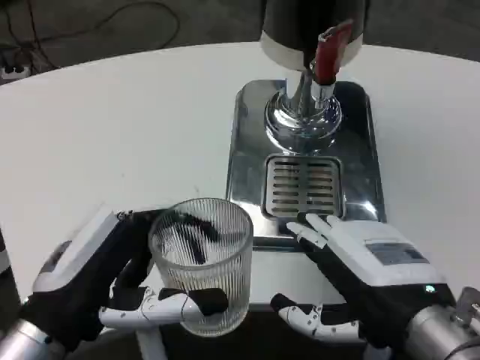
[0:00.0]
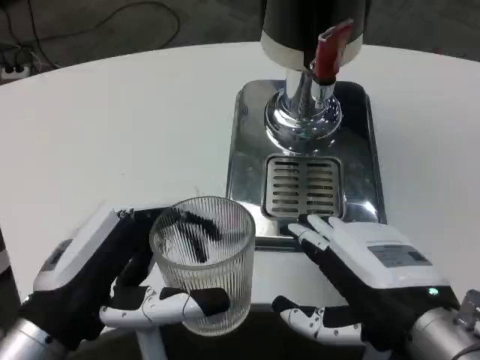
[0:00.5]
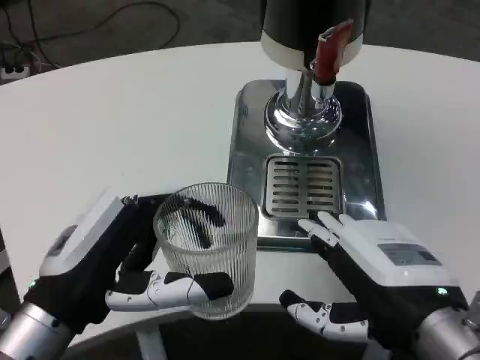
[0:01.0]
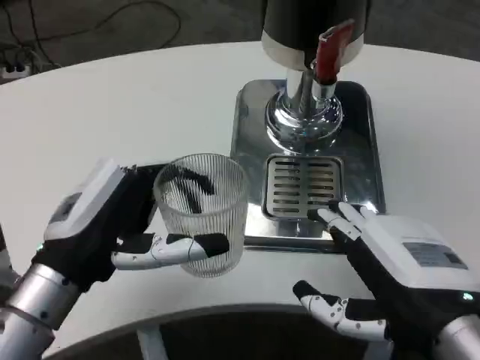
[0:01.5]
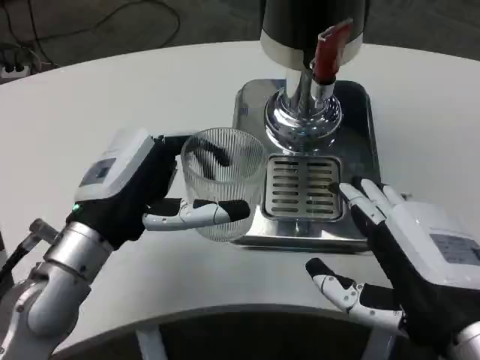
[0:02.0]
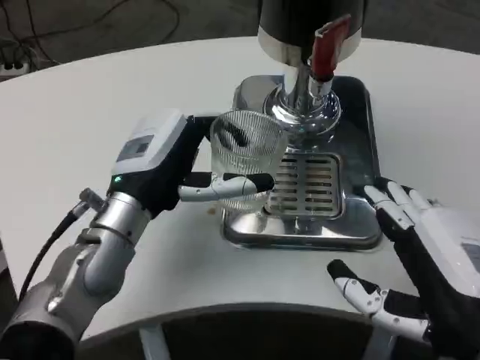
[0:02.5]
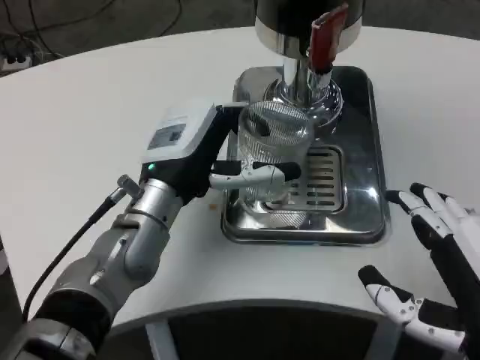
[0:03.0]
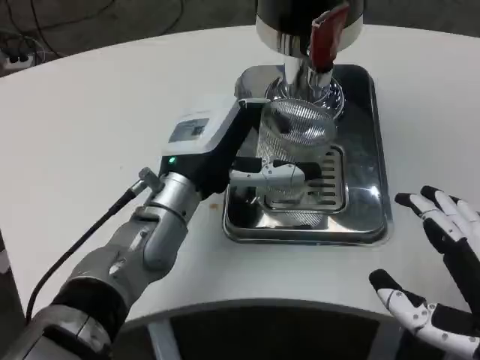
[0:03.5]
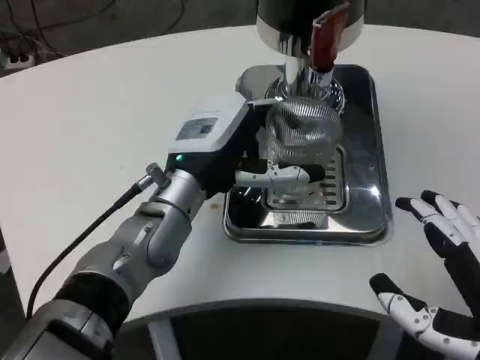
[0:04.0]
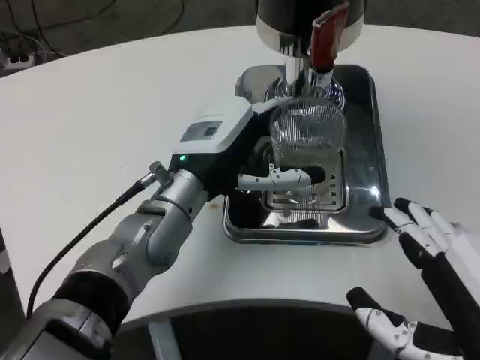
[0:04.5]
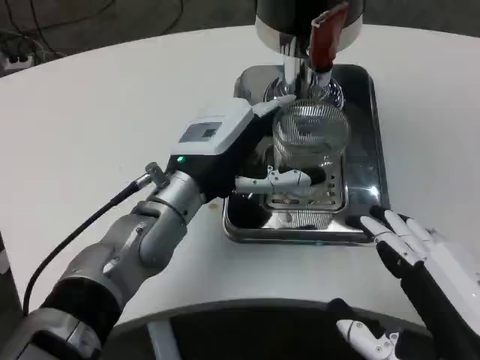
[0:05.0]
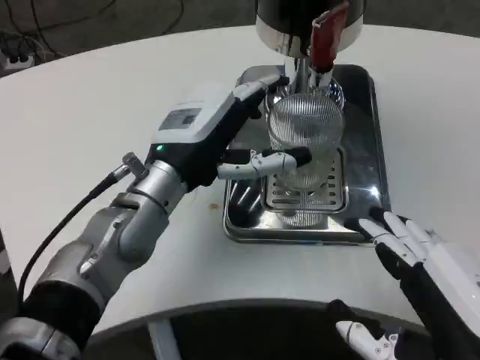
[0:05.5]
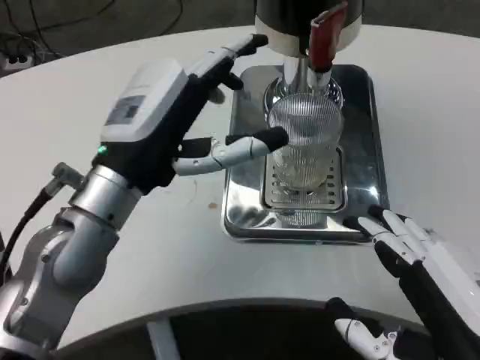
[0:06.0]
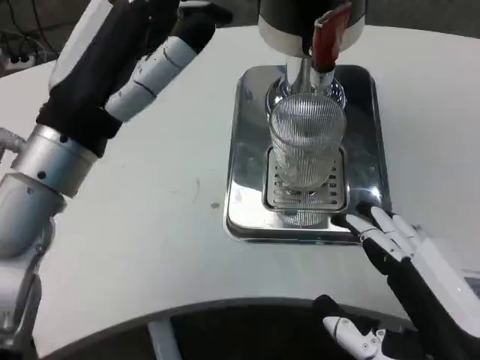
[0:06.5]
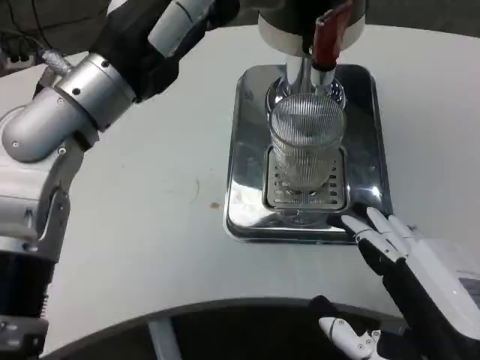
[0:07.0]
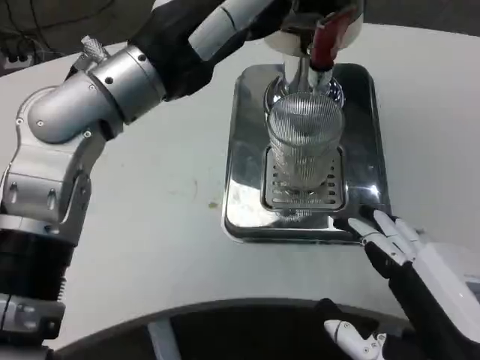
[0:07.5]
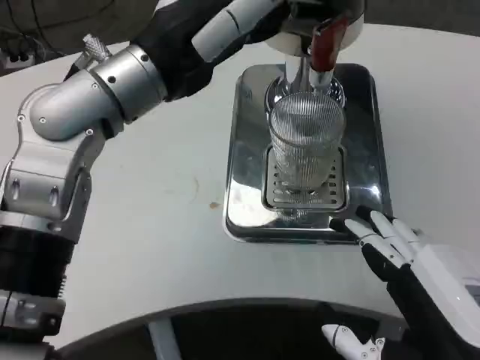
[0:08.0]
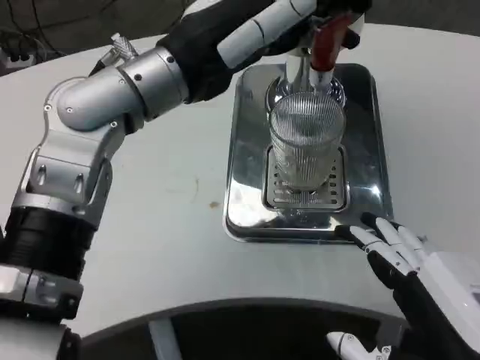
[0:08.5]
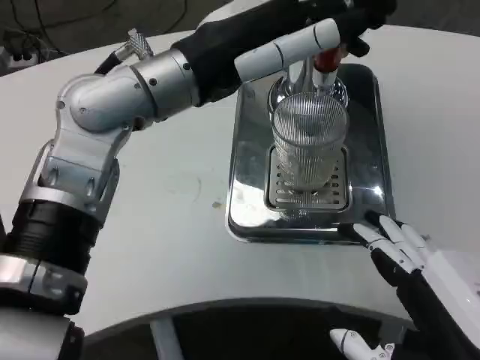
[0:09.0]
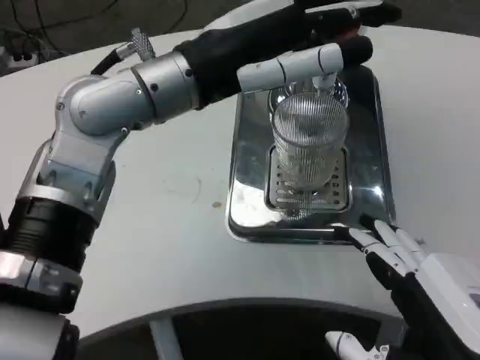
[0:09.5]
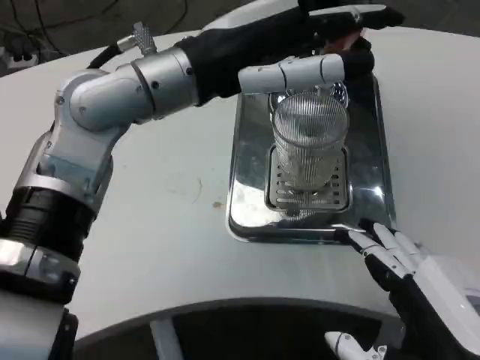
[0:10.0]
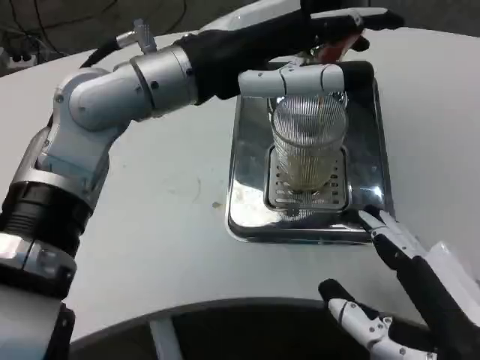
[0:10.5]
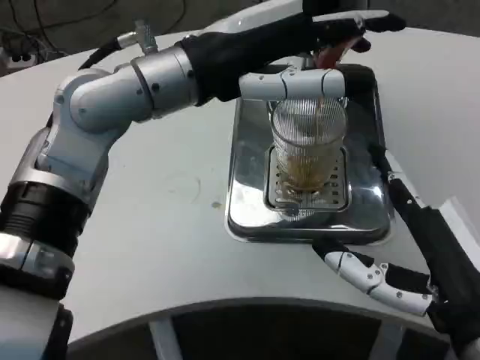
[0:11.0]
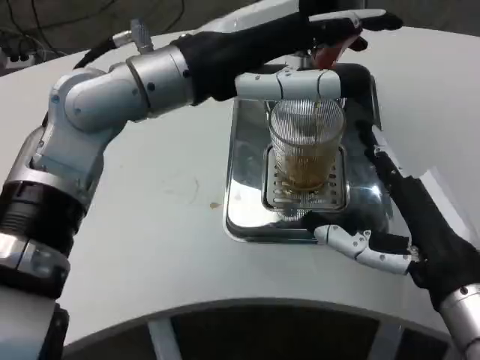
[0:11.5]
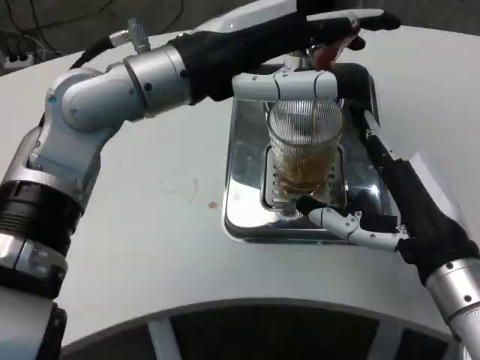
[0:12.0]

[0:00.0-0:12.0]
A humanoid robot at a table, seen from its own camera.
Task of the whole recording: Grasp the cup under the faucet to collect the drink, then remove the cup.
0:00.0 to 0:02.0: The left hand travels forward by about 10 cm.
0:02.0 to 0:04.0: The left hand travels to the right and forward by roughly 10 cm.
0:04.0 to 0:06.0: The left hand travels backward and to the left by some 10 cm.
0:06.0 to 0:08.0: The left hand is displaced upward by some 10 cm.
0:10.0 to 0:12.0: The right hand travels forward by about 15 cm.

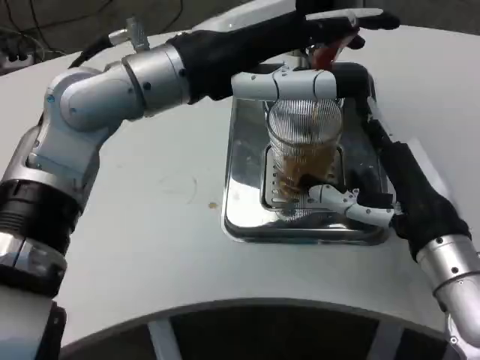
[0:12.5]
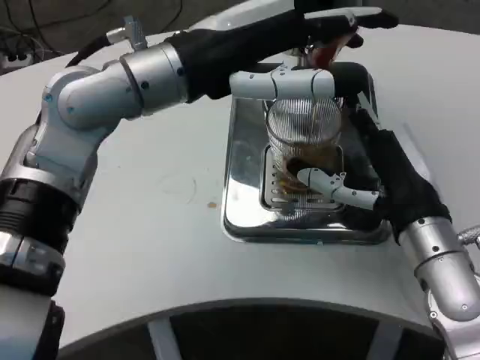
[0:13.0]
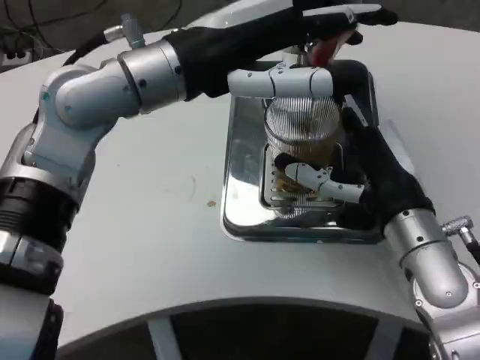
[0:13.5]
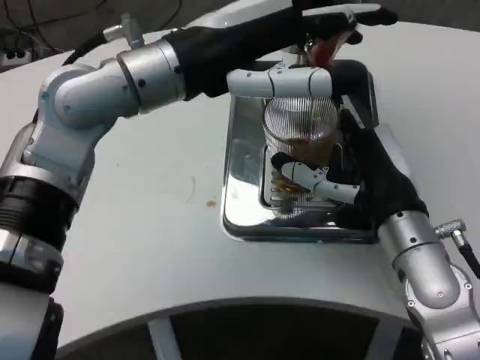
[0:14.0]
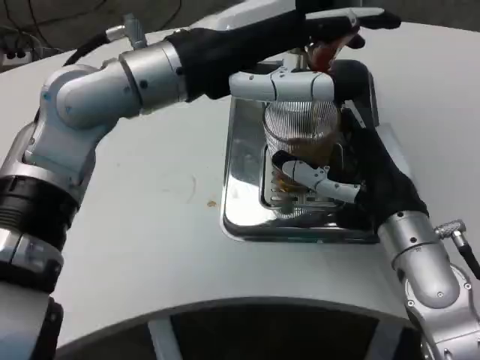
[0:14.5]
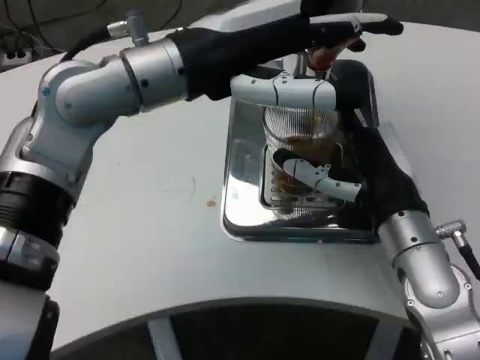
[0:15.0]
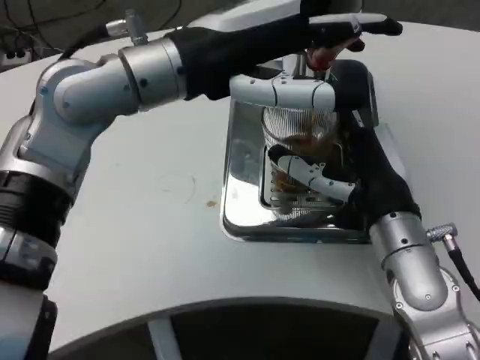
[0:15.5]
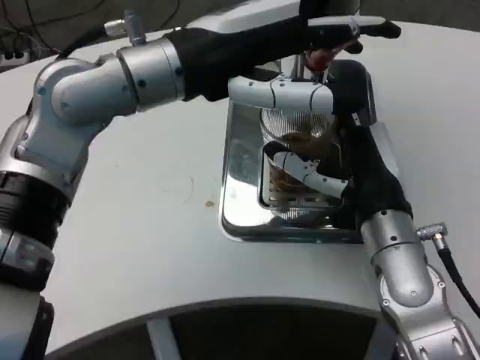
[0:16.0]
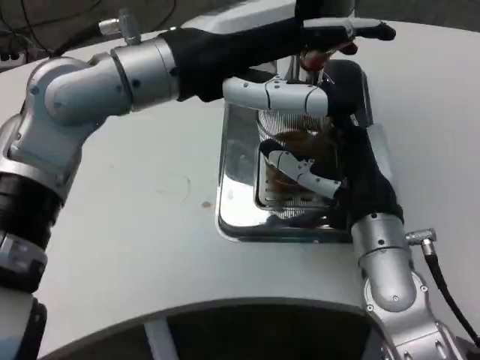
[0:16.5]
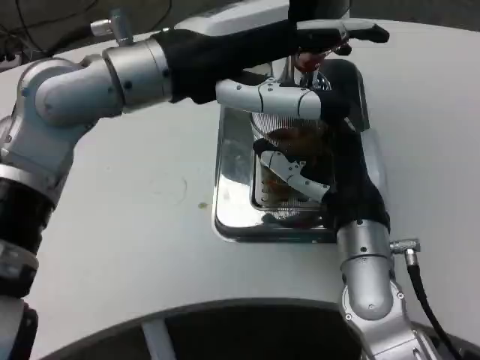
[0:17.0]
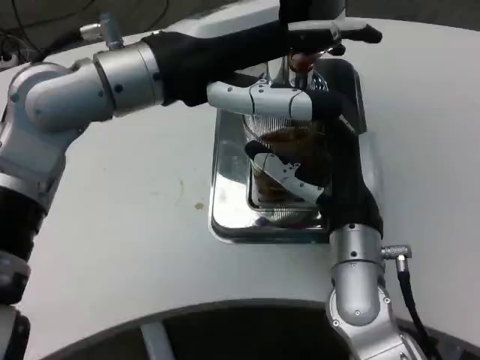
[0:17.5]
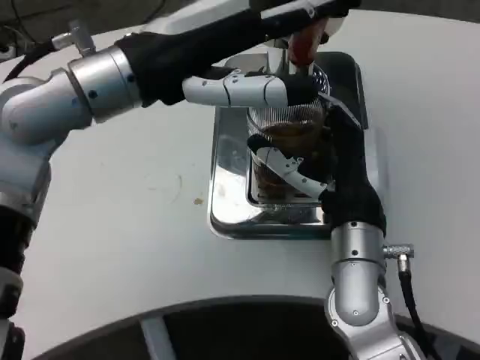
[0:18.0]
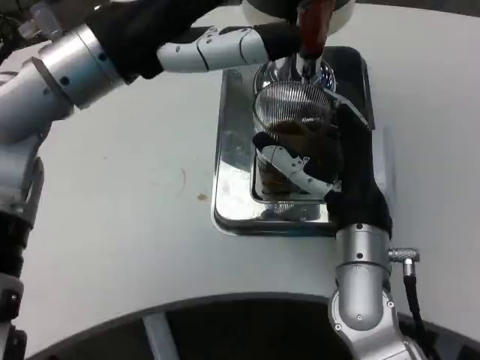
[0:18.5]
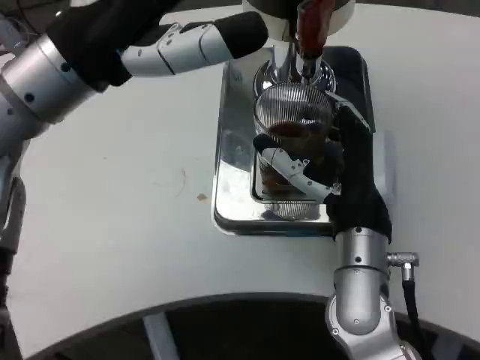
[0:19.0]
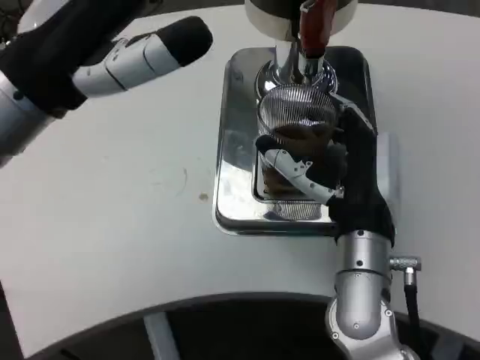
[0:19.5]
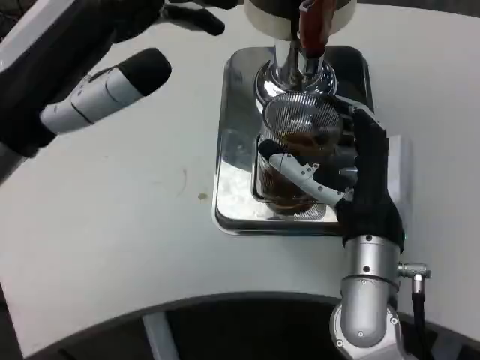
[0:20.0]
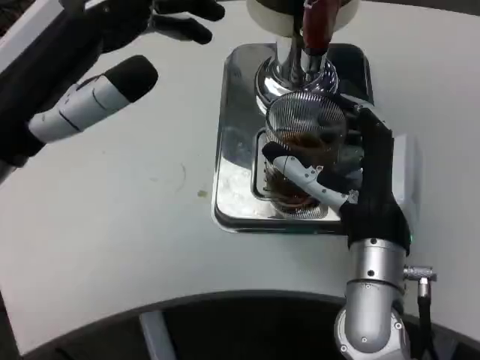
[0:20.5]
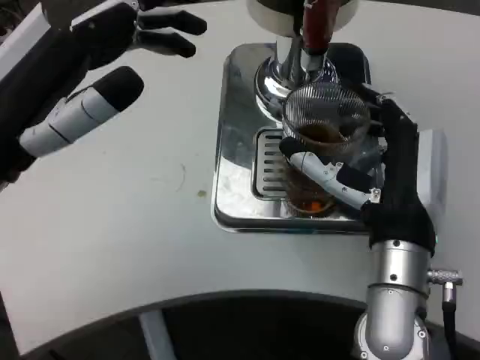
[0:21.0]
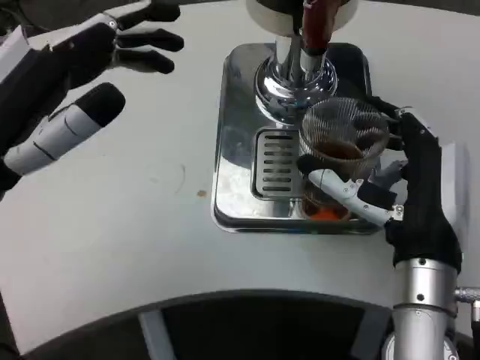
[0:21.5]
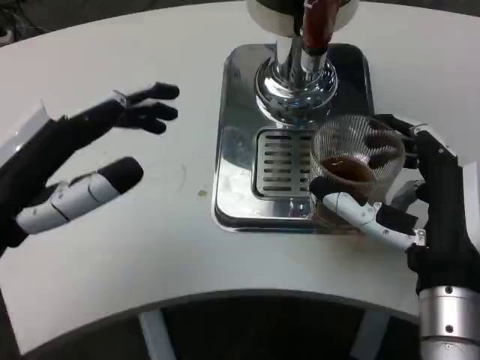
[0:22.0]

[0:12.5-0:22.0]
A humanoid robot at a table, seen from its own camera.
Task of the whole recording: Grasp the cup under the faucet to collect the drink, then remove the cup.
0:18.0 to 0:20.0: The left hand is displaced backward and to the left by some 10 cm.
0:20.0 to 0:22.0: The right hand travels backward and to the right by some 10 cm, while the left hand is displaced downward by roughly 5 cm.

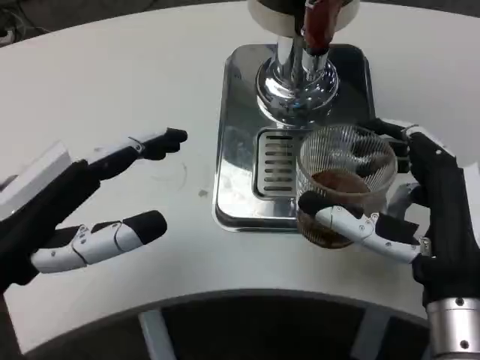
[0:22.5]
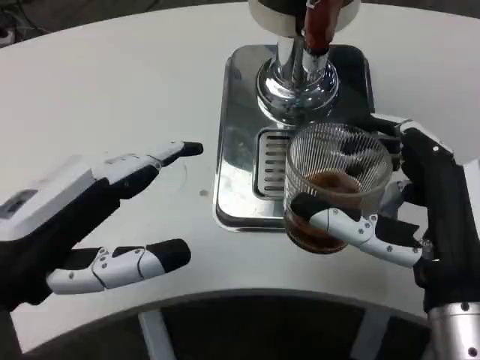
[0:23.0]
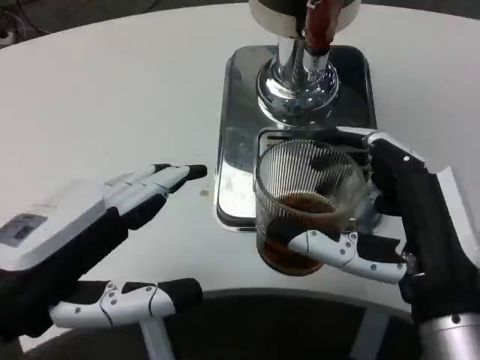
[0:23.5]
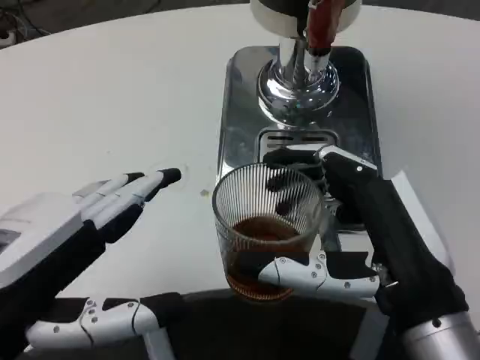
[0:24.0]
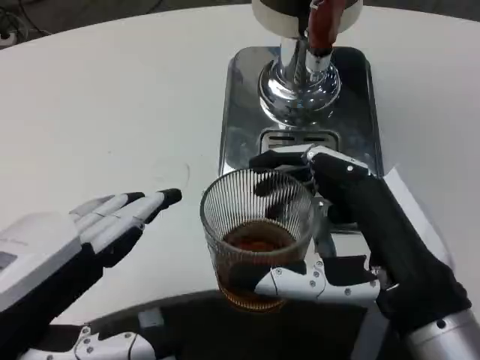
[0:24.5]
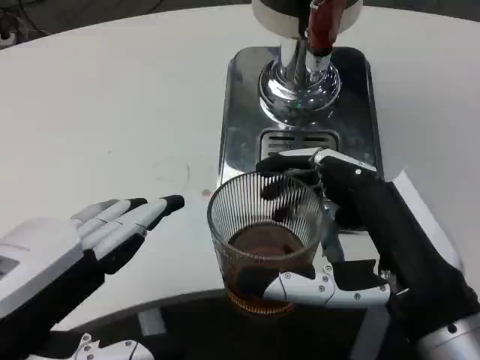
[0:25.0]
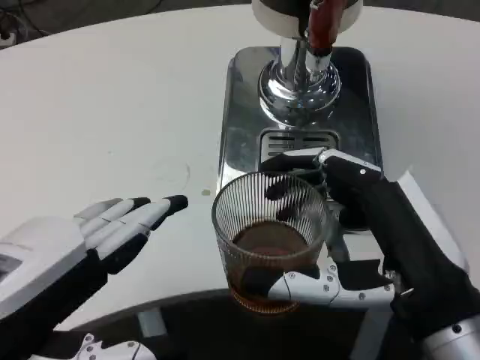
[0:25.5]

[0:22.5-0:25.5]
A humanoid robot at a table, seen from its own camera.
Task of the whole recording: Grasp the cup under the faucet to collect the drink, then remove the cup.
0:22.5 to 0:24.0: The left hand is displaced backward by some 5 cm.

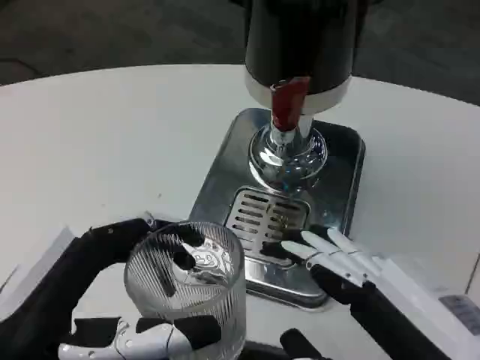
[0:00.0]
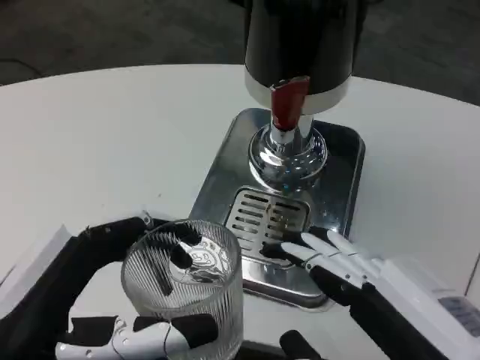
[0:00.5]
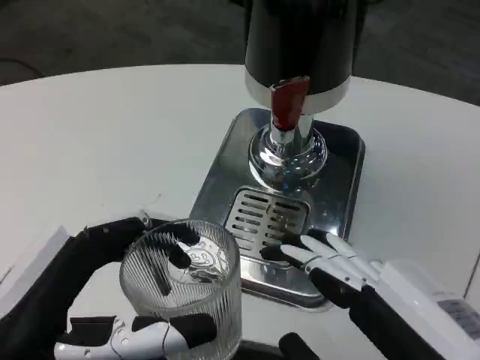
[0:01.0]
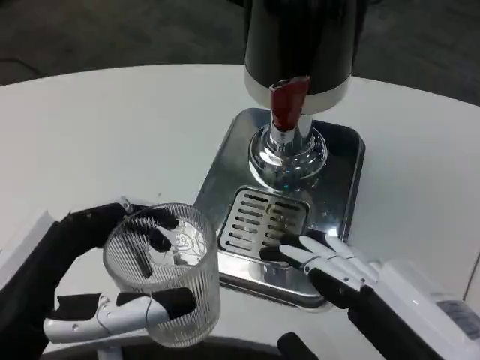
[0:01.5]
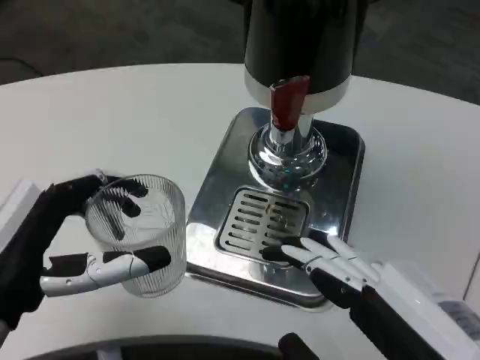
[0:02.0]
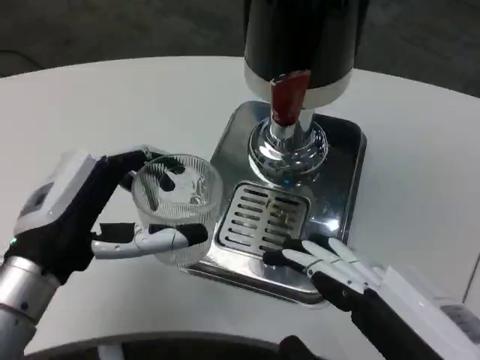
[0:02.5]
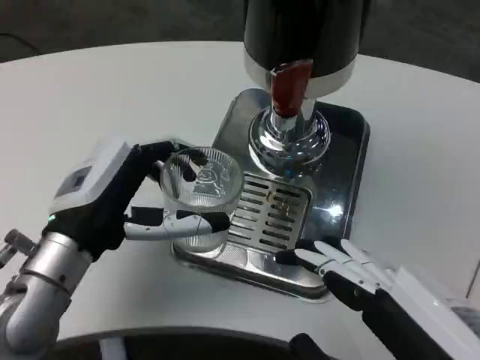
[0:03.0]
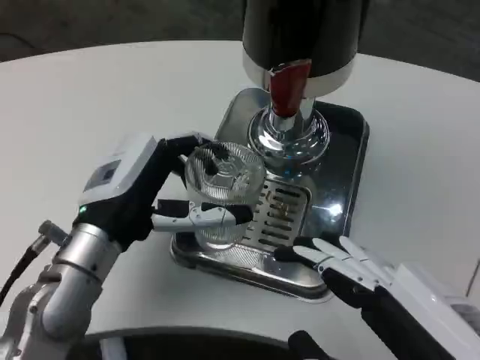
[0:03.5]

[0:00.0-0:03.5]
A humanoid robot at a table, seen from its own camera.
Task of the whole recording: Grasp the cup under the faucet to collect the drink, then remove the cup.
0:00.0 to 0:02.0: The left hand travels forward by about 5 cm.
0:02.0 to 0:03.5: The left hand heads forward and to the right, covering roughly 10 cm.
